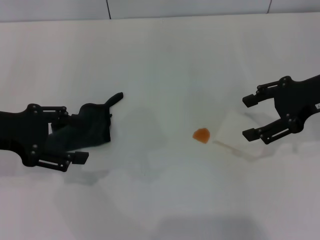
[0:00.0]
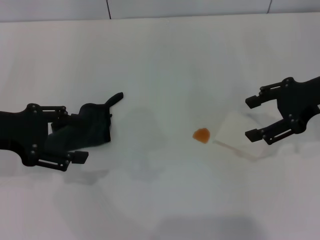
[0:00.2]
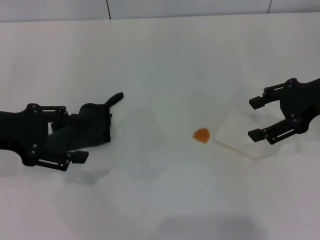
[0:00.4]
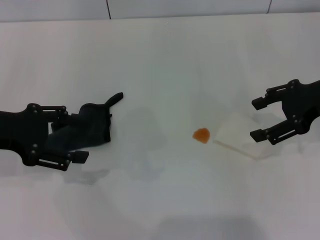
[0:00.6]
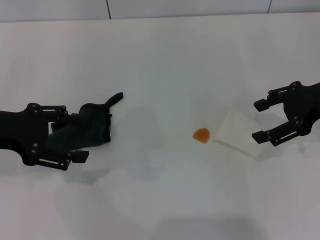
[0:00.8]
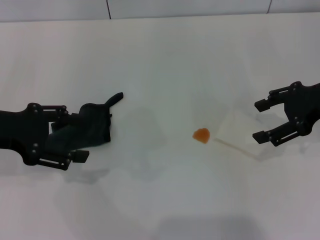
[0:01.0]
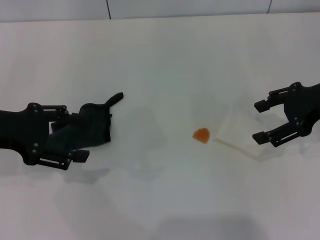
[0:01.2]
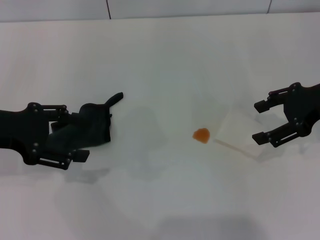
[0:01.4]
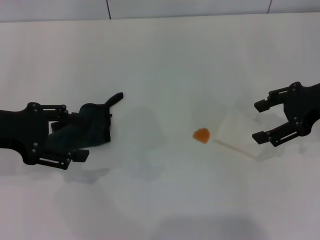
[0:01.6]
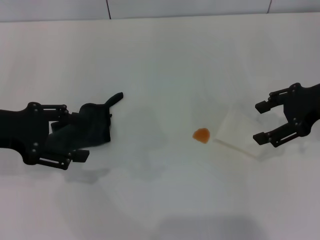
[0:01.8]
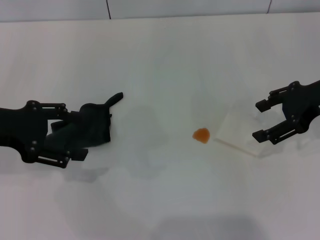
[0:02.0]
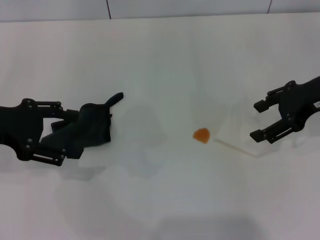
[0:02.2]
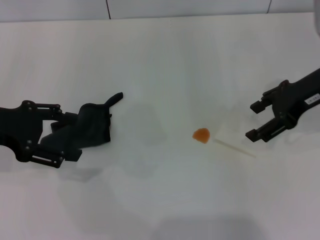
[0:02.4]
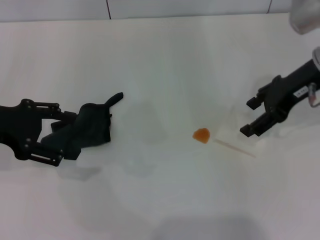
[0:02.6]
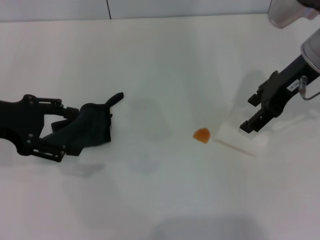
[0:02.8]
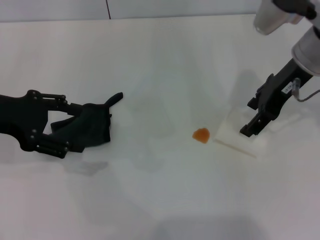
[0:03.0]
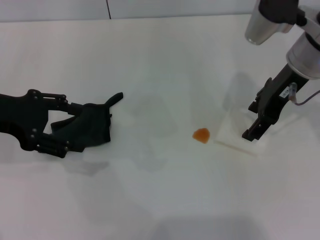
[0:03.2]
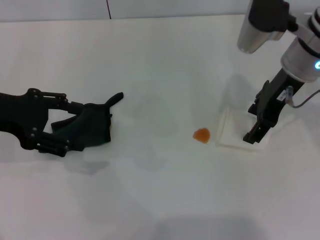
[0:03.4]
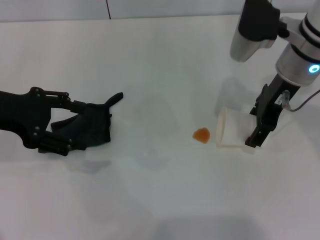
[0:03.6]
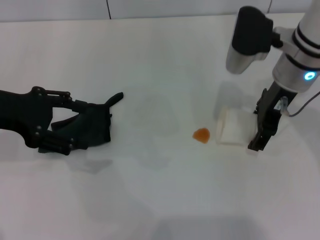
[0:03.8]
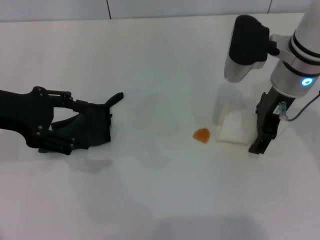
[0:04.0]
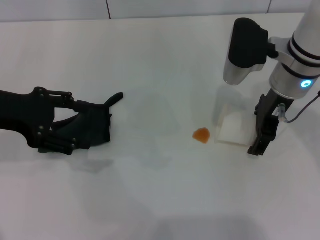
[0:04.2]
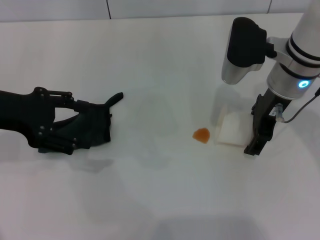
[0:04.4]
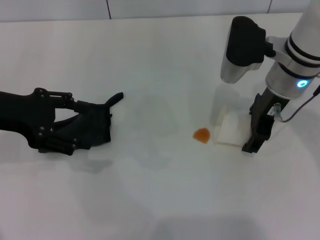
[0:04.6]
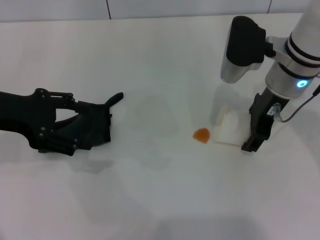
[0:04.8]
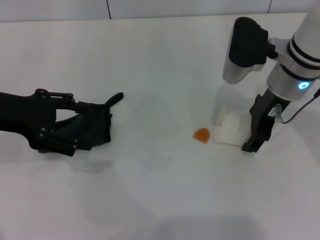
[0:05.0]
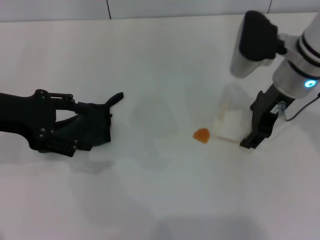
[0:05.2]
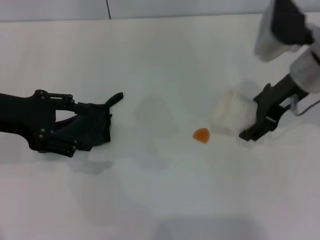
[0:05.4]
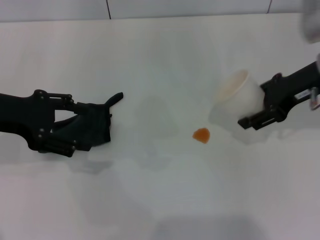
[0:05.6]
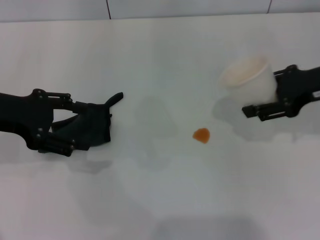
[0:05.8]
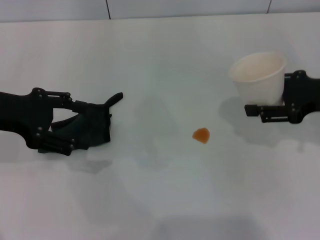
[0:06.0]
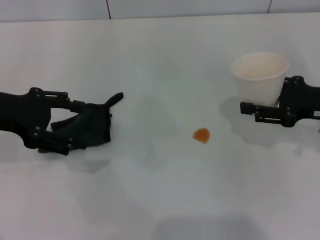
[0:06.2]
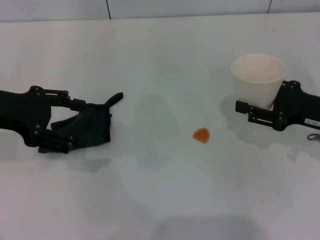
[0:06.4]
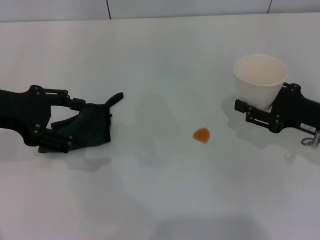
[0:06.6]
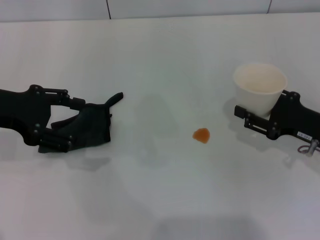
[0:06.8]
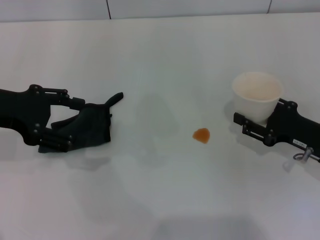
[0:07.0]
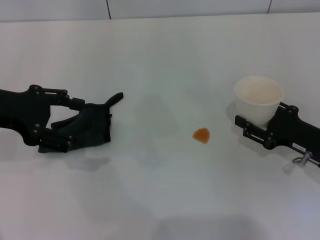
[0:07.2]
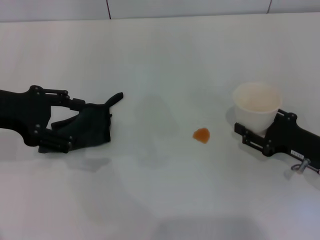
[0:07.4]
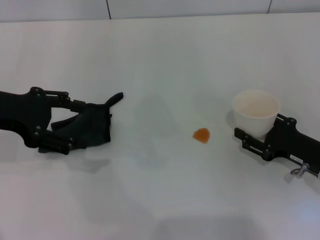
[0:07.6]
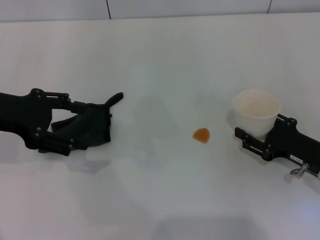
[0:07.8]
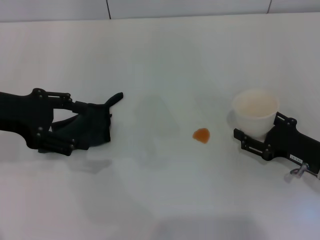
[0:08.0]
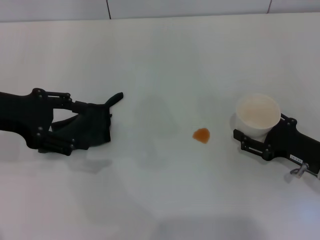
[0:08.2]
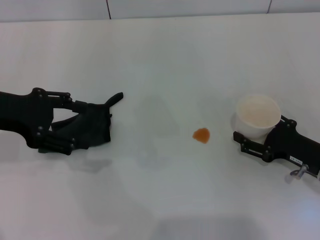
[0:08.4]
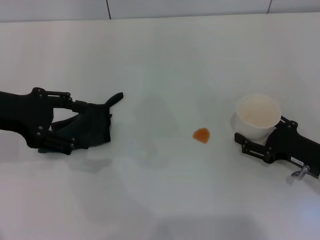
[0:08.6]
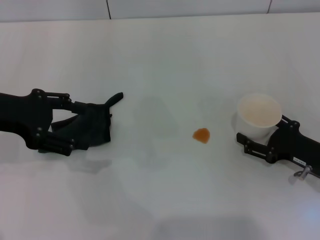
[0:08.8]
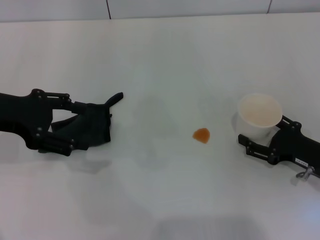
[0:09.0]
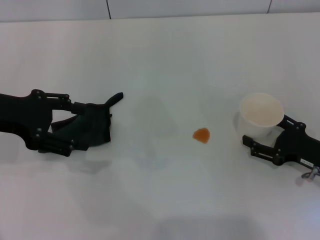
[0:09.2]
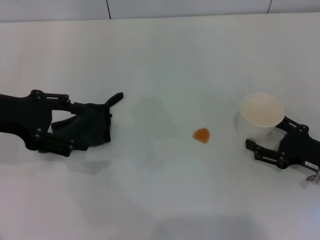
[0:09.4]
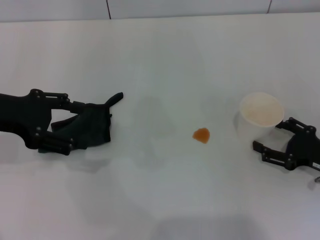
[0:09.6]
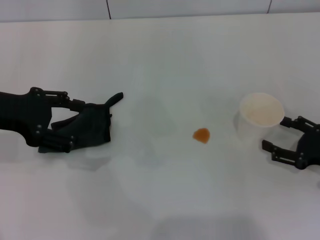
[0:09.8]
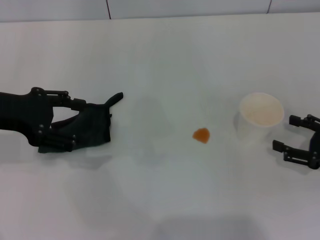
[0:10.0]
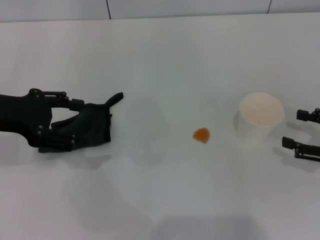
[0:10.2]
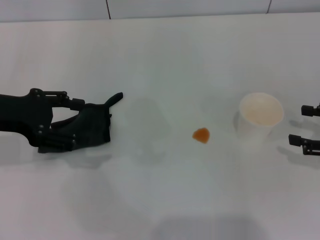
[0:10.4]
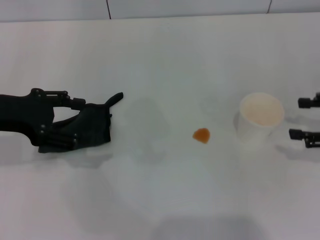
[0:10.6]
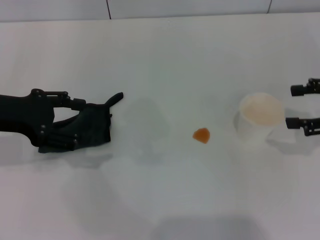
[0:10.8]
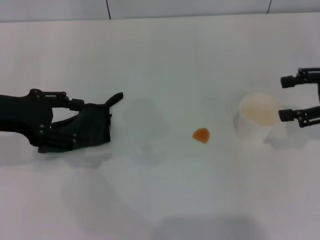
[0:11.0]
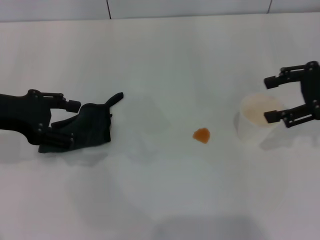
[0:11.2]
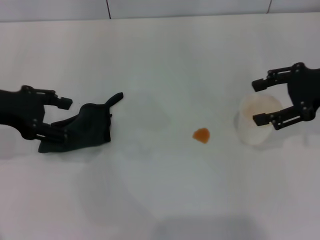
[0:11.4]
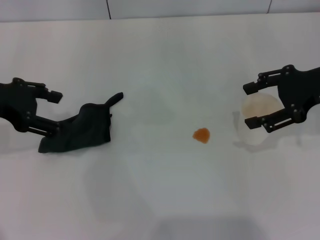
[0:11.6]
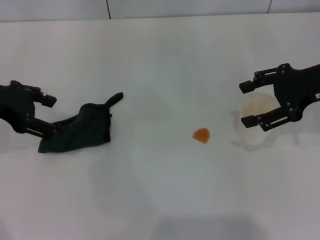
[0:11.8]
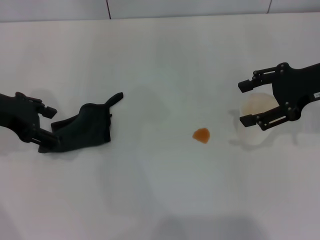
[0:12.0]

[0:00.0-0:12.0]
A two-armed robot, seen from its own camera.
Step, 0.0 to 5.0 s: Grasp the paper cup with the right gripper.
Step, 5.2 to 10.0 s: Stand the paper cup upright with the right gripper.
0.0 to 1.6 s: The grippers stay close to where they were, moving slightly.
1.6 to 3.0 s: The right gripper goes some 10 cm to the left and forward.
3.0 to 4.4 s: The right gripper changes place by approximately 5 cm.
4.4 to 6.0 s: The right gripper heads to the right and backward, covering about 15 cm, and closes its fingers.
6.0 to 7.6 s: The right gripper is displaced downward and backward by about 15 cm.
7.6 to 9.0 s: The right gripper opens.
9.0 to 10.4 s: The right gripper shifts about 10 cm to the right and upward.
10.4 to 12.0 s: The right gripper heads upward, to the left and forward, covering some 15 cm.

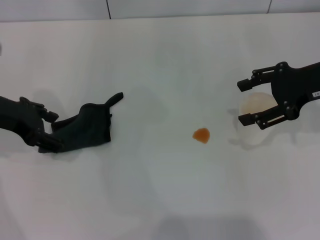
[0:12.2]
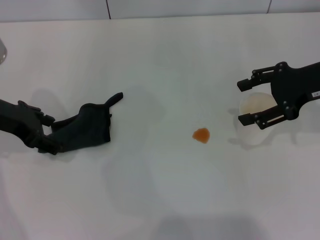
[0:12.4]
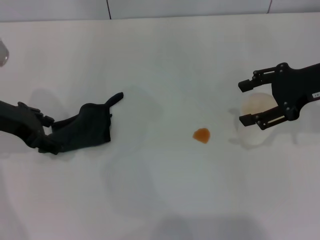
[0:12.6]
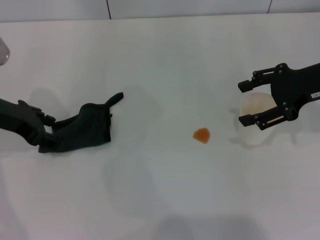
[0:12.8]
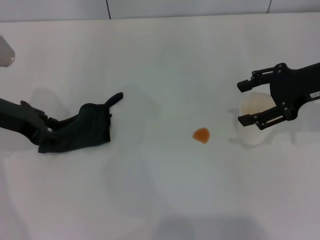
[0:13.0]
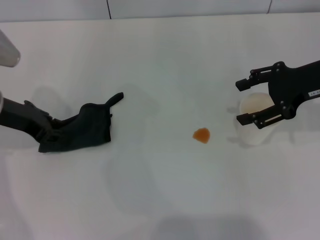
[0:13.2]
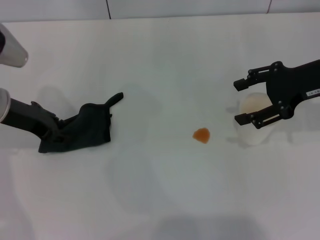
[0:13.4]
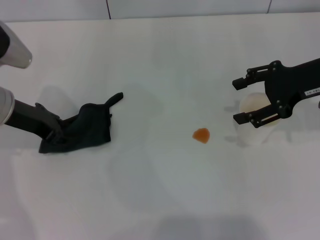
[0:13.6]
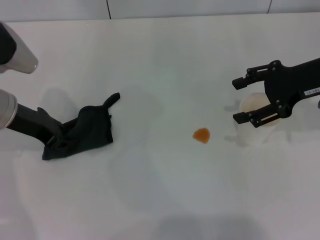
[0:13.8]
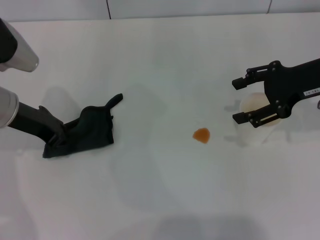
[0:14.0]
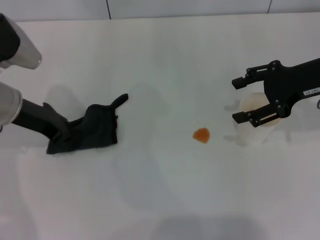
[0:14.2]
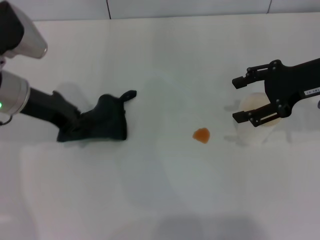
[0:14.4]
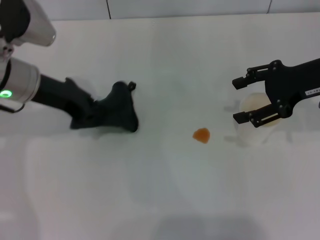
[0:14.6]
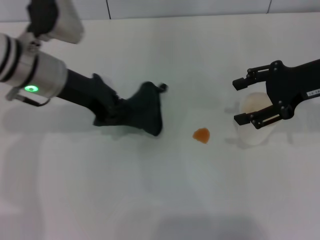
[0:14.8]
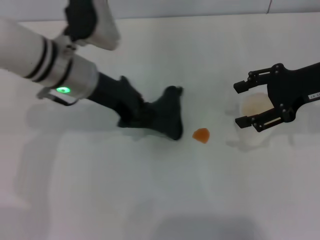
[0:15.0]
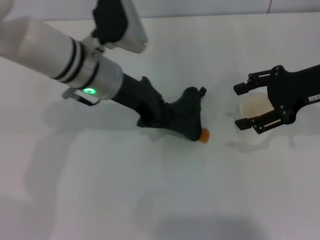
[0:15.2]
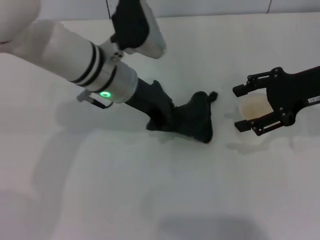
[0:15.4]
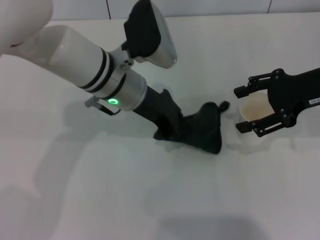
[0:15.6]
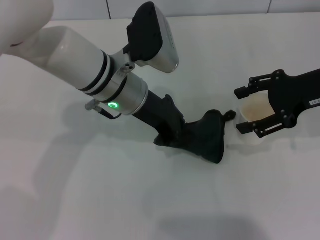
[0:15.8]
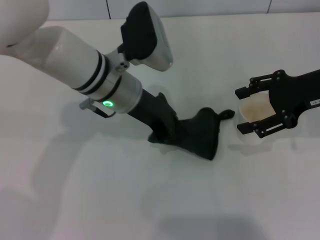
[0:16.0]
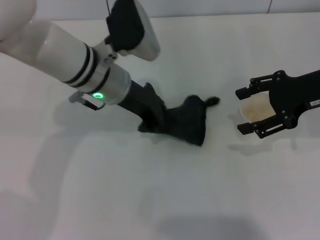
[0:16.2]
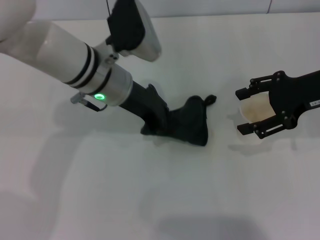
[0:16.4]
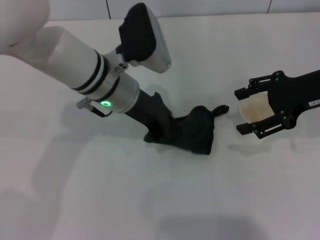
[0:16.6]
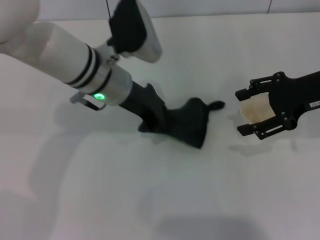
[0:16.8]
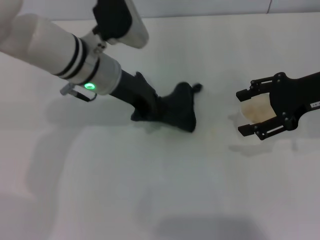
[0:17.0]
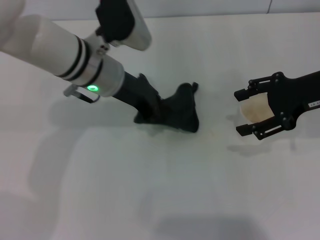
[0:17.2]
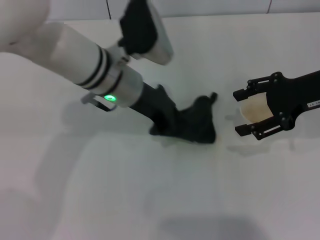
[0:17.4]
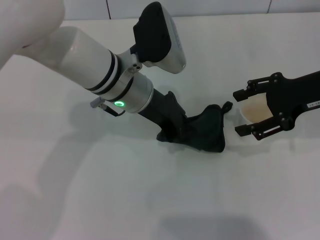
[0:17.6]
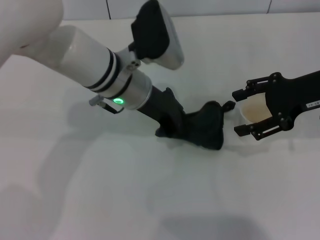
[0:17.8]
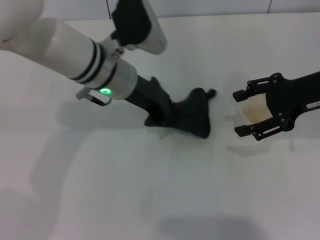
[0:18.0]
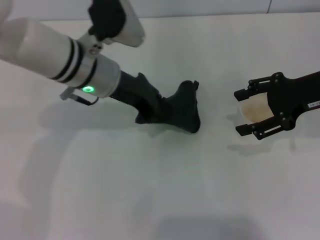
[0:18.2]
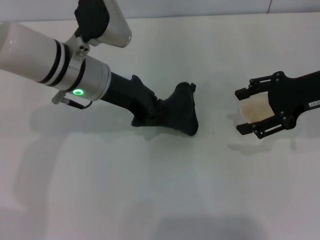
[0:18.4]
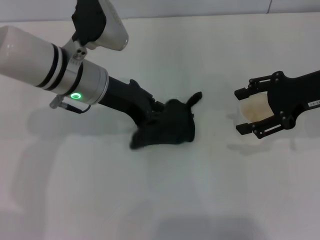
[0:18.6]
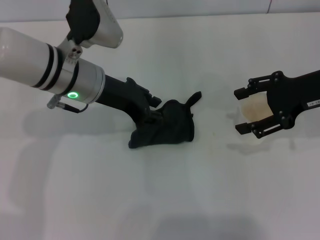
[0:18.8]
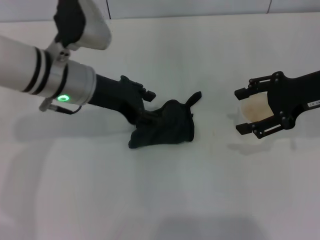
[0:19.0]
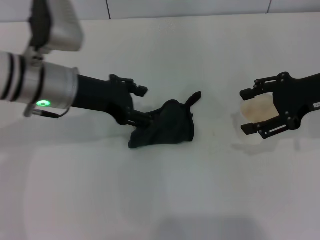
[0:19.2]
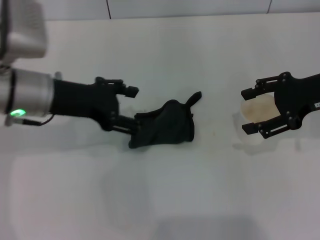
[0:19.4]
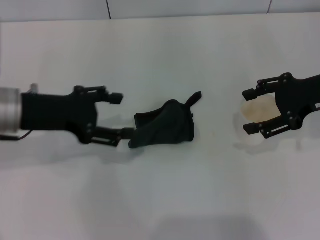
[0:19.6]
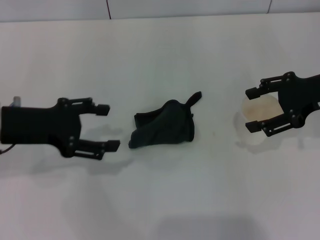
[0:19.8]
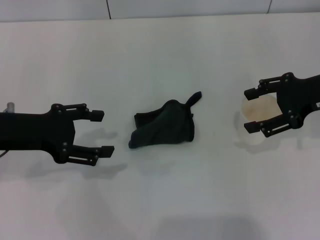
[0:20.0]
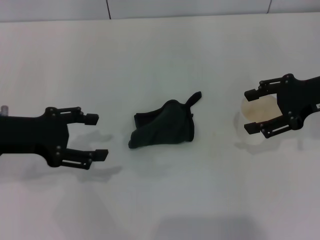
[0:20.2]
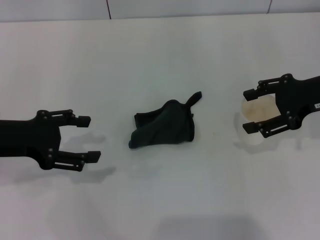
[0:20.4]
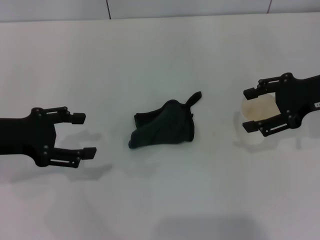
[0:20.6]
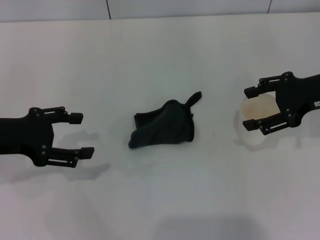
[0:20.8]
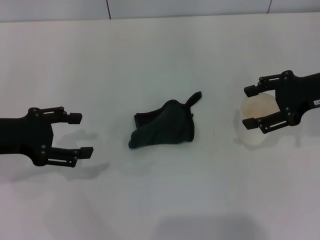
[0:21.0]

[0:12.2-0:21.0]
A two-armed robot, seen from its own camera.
Step, 14.4 to 18.4 s: Wipe the stains off the table with the left gripper.
Step, 18.6 to 20.0 s: Place the rag on the table with the left gripper.
12.2 to 13.6 s: The left gripper closes.
13.6 to 15.2 s: The left gripper shifts some 15 cm to the right, and closes.
15.2 to 18.0 s: The grippers move only a little.
18.0 to 19.6 s: The left gripper goes roughly 15 cm to the left and backward, and opens.
19.6 to 21.0 s: The left gripper goes some 5 cm to the left.

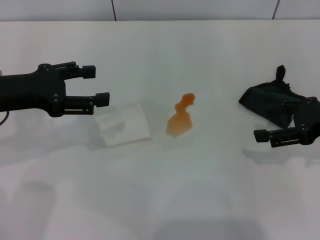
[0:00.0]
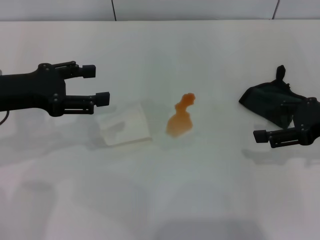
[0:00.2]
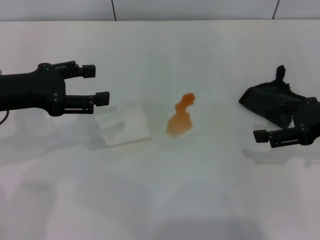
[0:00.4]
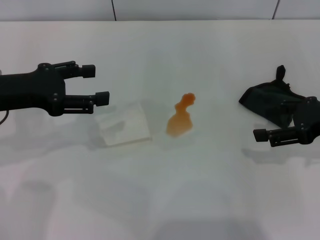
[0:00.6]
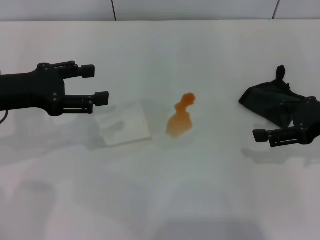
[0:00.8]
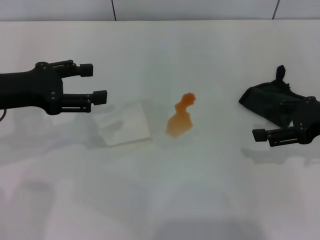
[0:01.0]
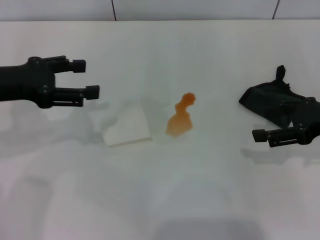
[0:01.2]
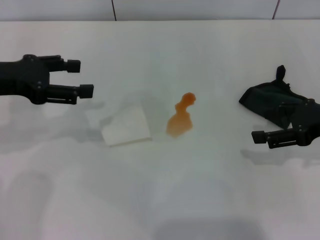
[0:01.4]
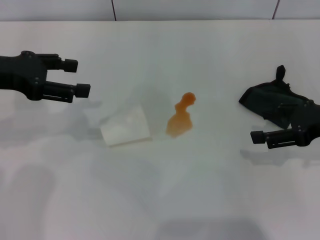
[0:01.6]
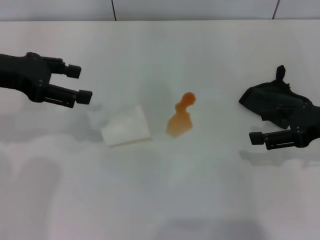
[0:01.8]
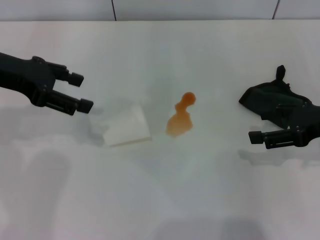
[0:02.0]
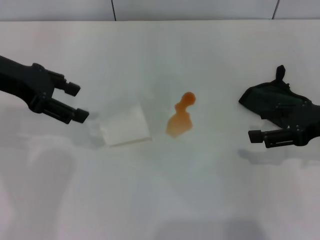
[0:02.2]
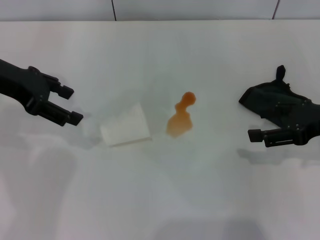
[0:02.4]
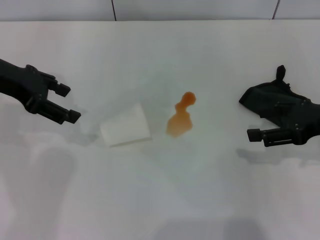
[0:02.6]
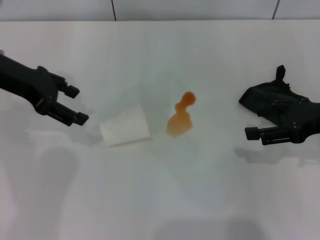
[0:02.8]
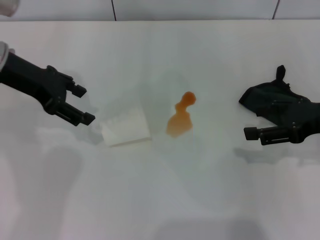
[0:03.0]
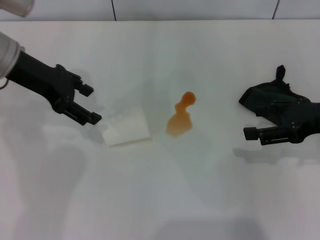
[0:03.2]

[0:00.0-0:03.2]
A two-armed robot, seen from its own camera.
0.0 to 1.6 s: The grippers stay close to where they were, moving slightly.
1.6 to 3.2 s: The left gripper travels to the right by approximately 5 cm.
